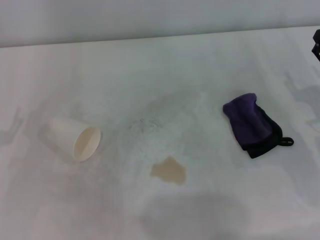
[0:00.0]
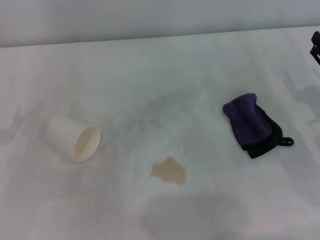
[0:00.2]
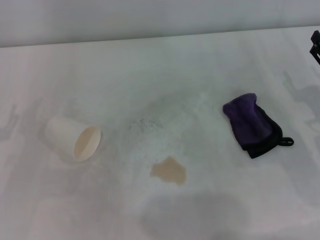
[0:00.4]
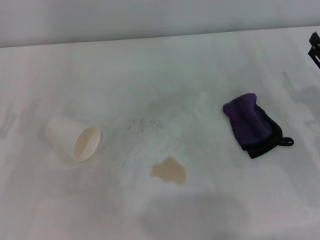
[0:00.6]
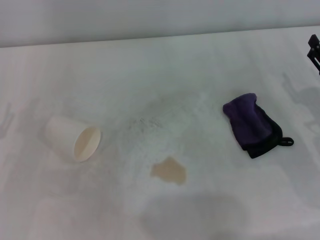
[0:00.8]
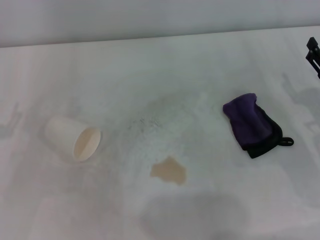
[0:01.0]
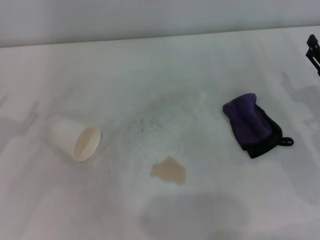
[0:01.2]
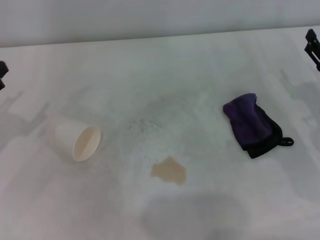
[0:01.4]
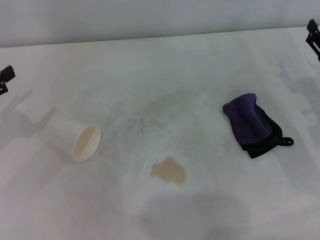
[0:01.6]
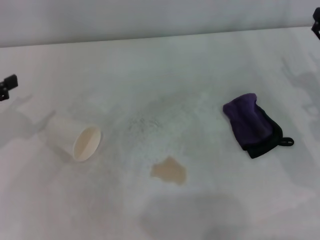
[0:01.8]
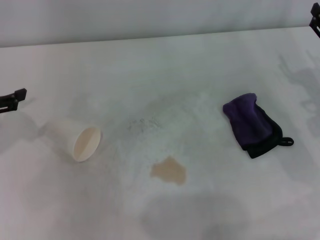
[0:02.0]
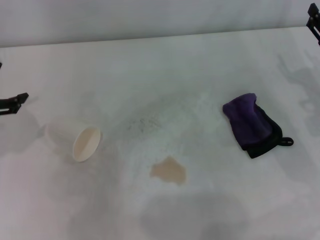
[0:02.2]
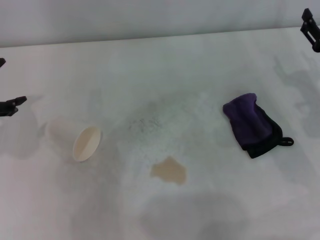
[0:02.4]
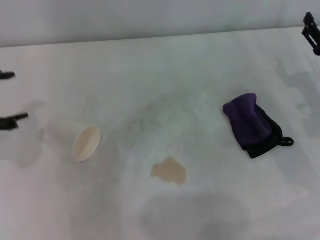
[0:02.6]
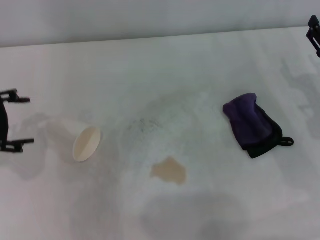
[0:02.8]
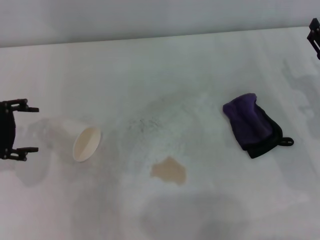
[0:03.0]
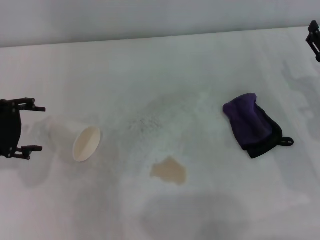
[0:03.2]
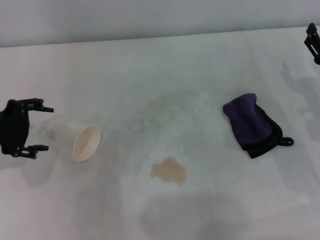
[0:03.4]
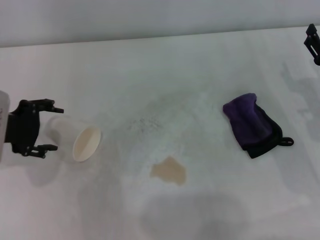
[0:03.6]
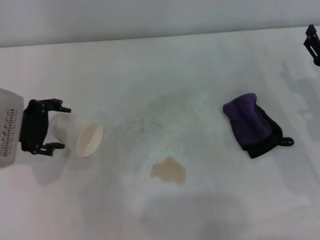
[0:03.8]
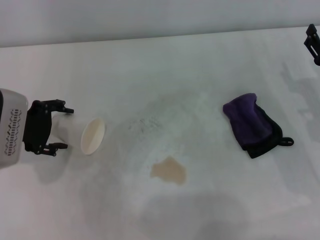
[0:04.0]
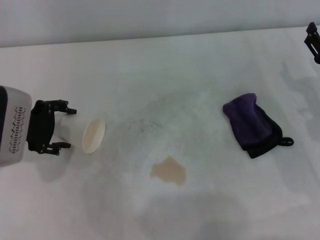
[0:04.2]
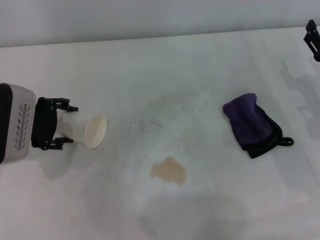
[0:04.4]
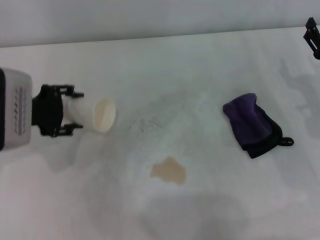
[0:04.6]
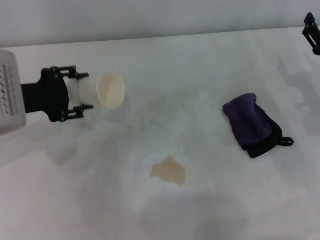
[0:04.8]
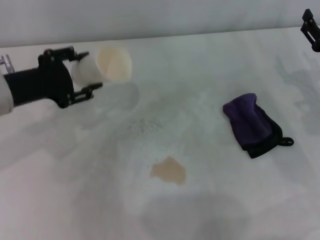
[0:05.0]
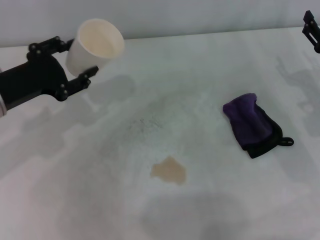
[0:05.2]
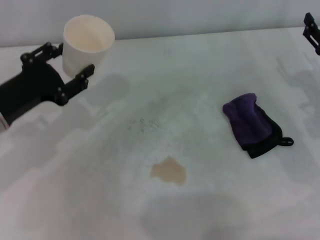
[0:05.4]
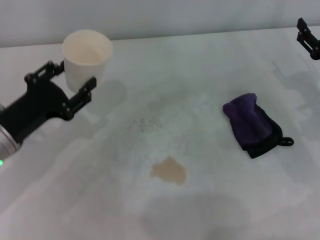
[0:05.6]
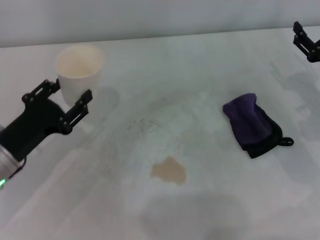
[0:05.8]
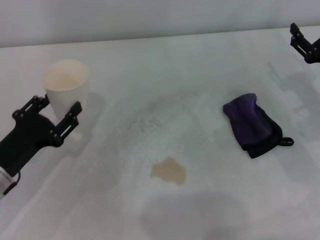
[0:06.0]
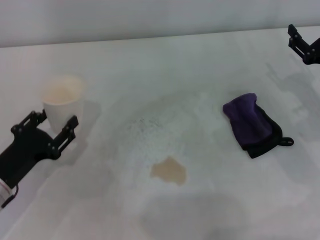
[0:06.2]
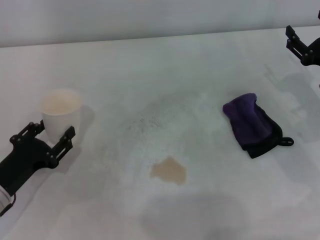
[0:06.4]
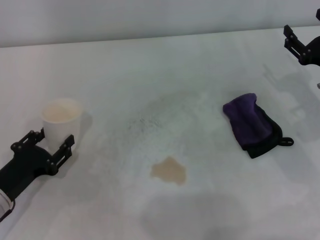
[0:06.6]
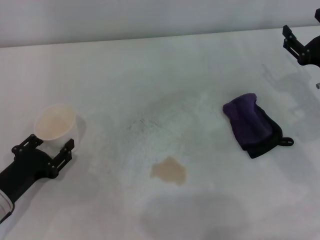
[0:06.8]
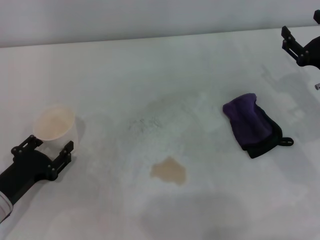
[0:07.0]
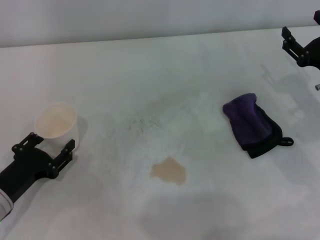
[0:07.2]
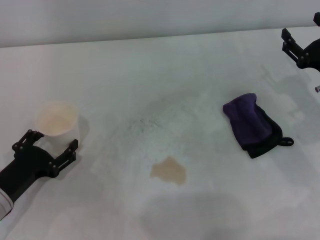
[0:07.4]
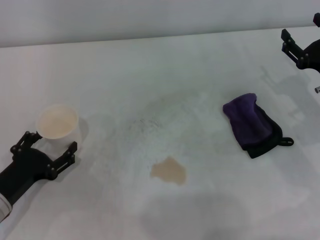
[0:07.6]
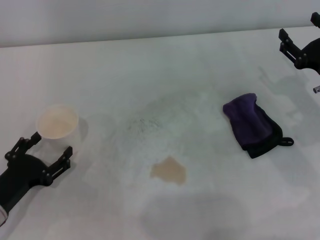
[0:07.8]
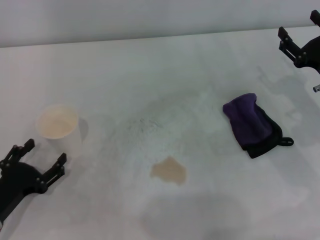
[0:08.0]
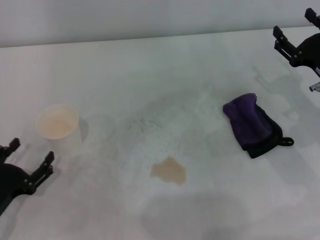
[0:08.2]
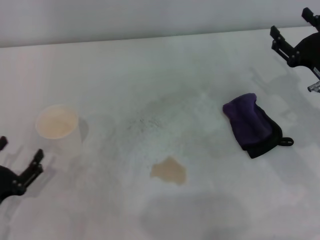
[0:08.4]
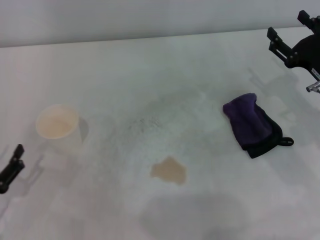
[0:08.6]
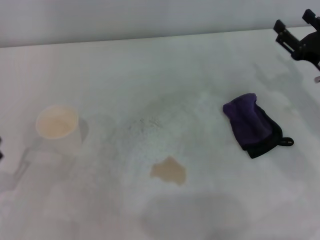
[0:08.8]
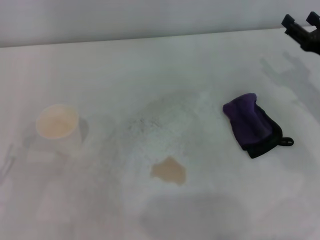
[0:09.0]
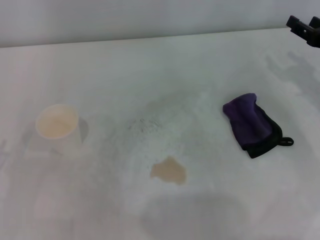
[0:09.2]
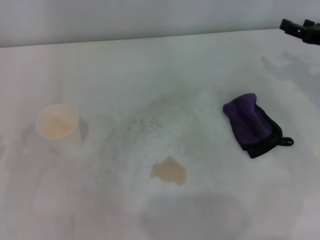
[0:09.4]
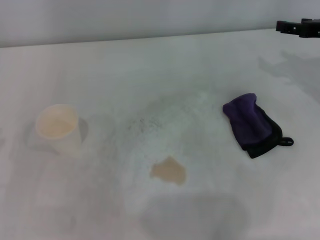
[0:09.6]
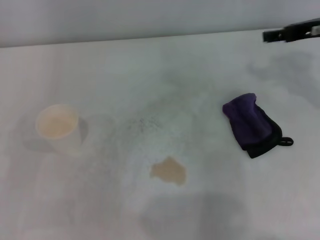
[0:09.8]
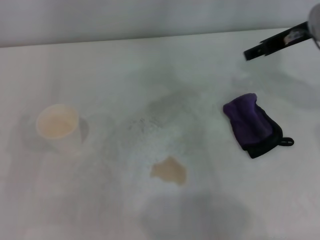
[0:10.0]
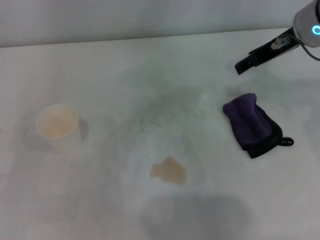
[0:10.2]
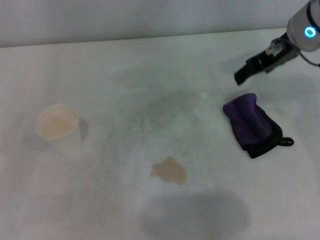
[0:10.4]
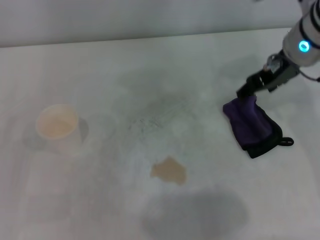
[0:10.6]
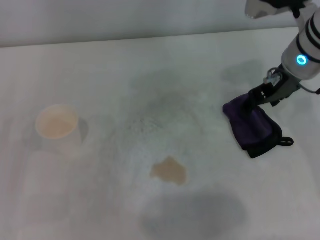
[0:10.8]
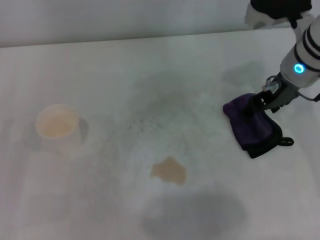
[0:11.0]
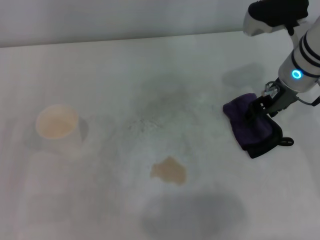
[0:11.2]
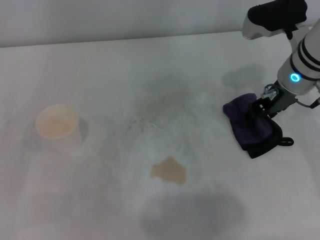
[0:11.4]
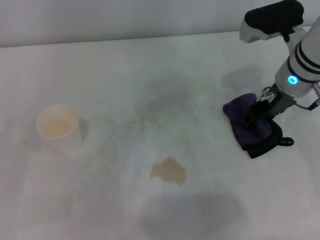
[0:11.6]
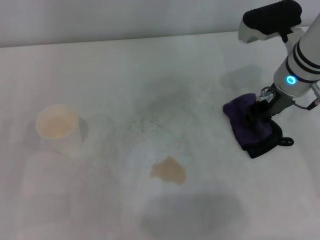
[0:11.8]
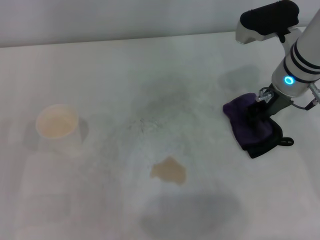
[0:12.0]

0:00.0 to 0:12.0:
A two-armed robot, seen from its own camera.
Step, 0:00.0 to 0:04.2: Grasp the paper cup with the left gripper.
Step, 0:04.4 to 0:07.0: Stand the paper cup upright with the left gripper.
Step, 0:07.2 to 0:11.8: Grasp the rag with the right gripper.
0:01.6 to 0:03.0: The left gripper goes some 5 cm to the right.
0:03.0 to 0:04.4: The left gripper ends up roughly 5 cm from where it was.
0:04.4 to 0:06.0: The left gripper shifts some 10 cm backward and downward, and closes.
0:06.0 to 0:07.6: The left gripper opens up.
0:07.6 to 0:09.0: The left gripper goes about 10 cm backward and to the left.
0:09.0 to 0:10.4: The right gripper moves upward, to the left and forward, approximately 20 cm.
0:10.4 to 0:12.0: The right gripper heads downward, covering roughly 10 cm, and closes.

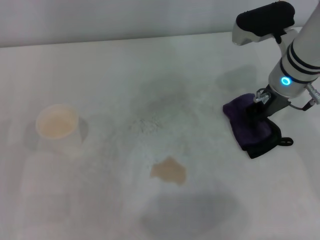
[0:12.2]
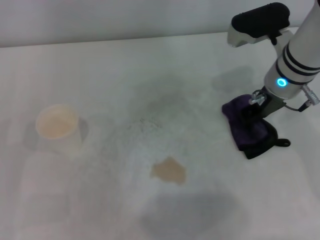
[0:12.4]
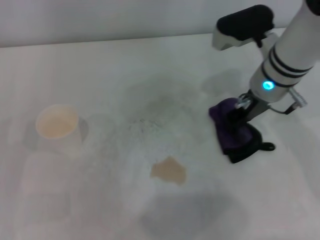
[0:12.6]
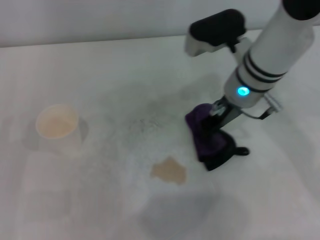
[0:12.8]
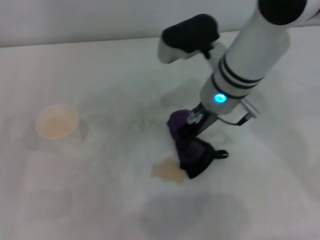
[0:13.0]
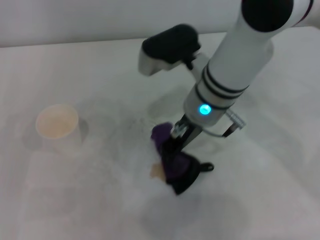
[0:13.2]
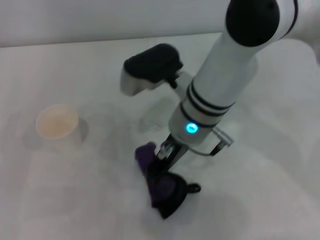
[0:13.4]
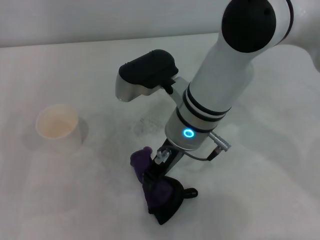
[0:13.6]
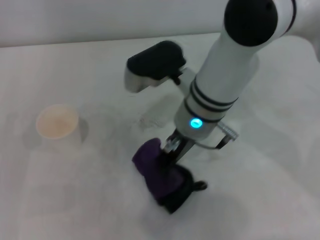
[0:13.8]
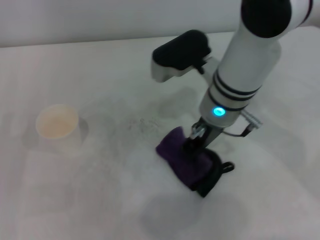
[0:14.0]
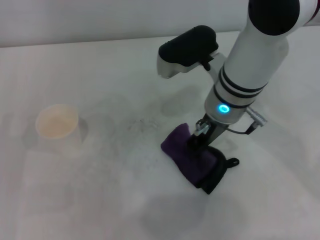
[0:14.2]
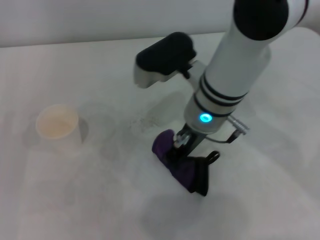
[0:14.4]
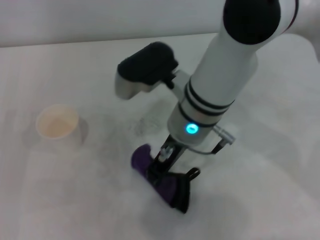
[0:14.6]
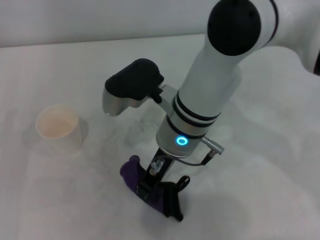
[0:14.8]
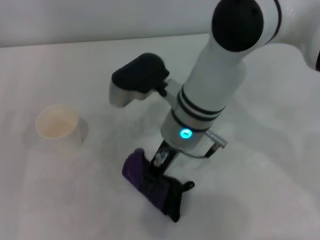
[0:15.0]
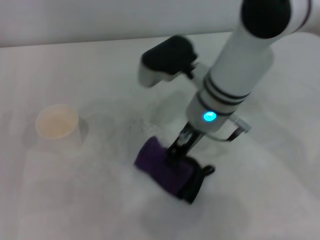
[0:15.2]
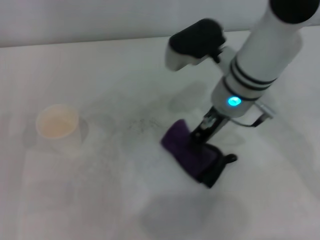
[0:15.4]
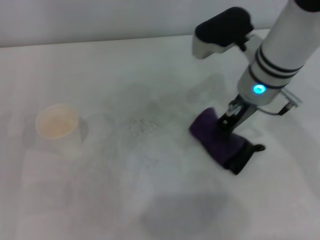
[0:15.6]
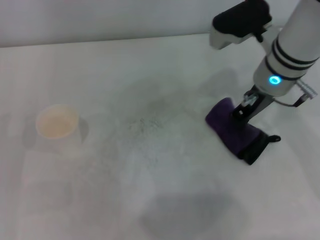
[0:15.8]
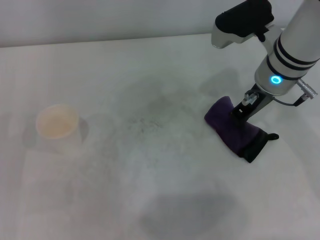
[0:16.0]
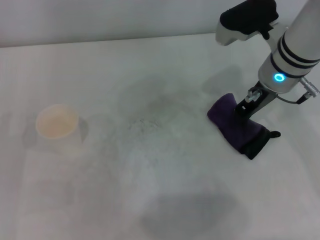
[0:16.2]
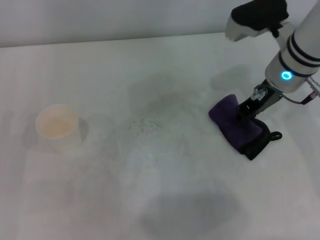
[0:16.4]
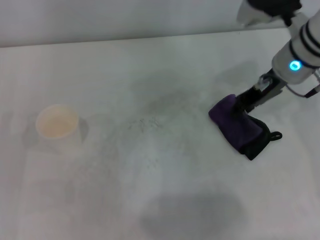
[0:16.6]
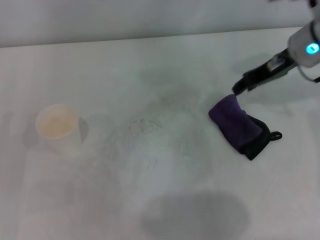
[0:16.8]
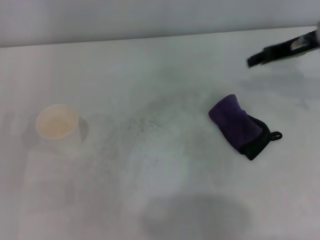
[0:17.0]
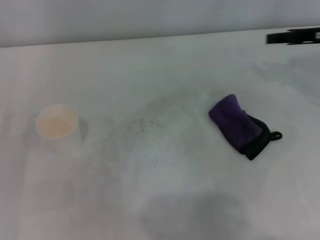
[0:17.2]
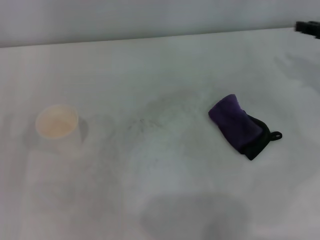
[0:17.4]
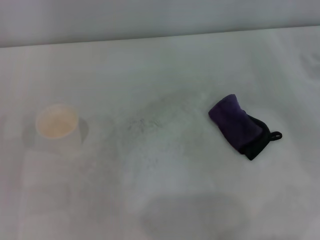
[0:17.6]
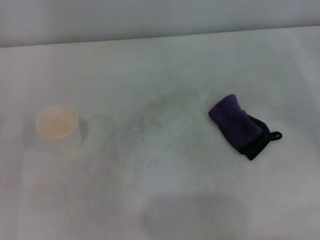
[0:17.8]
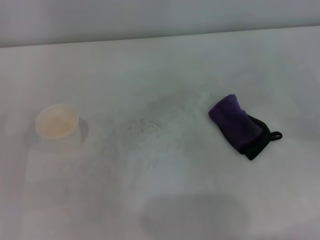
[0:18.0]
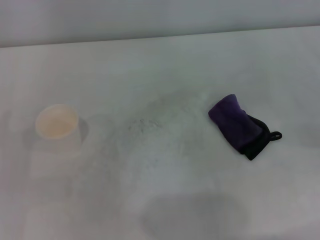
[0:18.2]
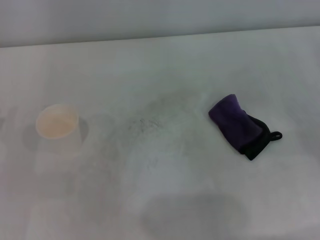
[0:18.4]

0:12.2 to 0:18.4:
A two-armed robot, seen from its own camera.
Step, 0:12.2 to 0:15.4: Wipe the stains off the table with the right gripper.
Step, 0:15.8 to 0:16.4: Place the rag on the table with the right gripper.
0:12.2 to 0:13.8: The right gripper moves to the left, approximately 15 cm.
0:13.8 to 0:15.4: The right gripper moves left and right over roughly 10 cm, changing direction 2 times.
0:15.4 to 0:16.8: The right gripper is displaced to the right by some 15 cm, and opens up.
0:16.8 to 0:18.4: The right gripper heads to the right, backward and downward, covering approximately 25 cm.
